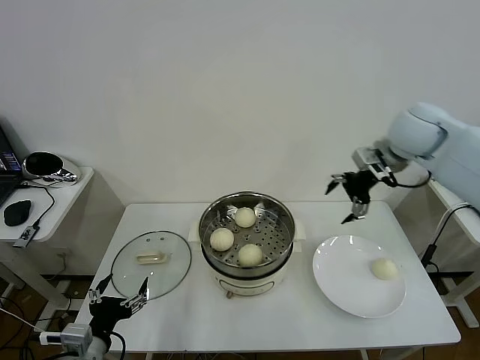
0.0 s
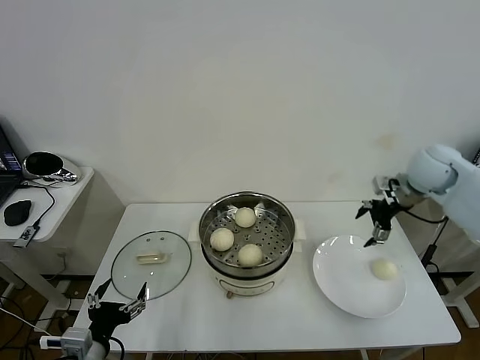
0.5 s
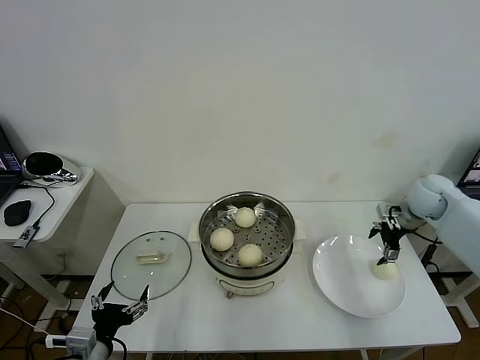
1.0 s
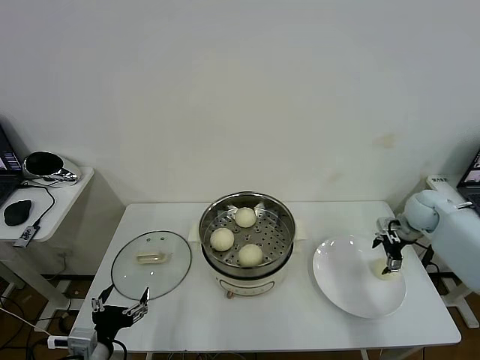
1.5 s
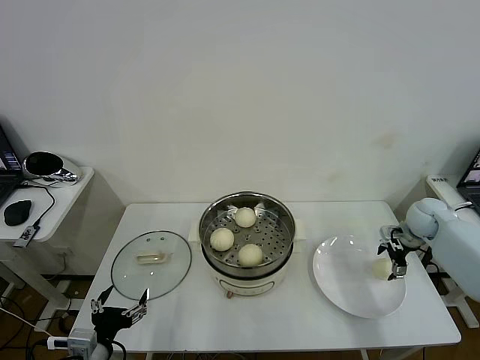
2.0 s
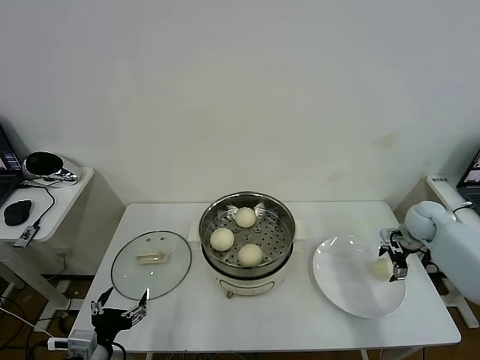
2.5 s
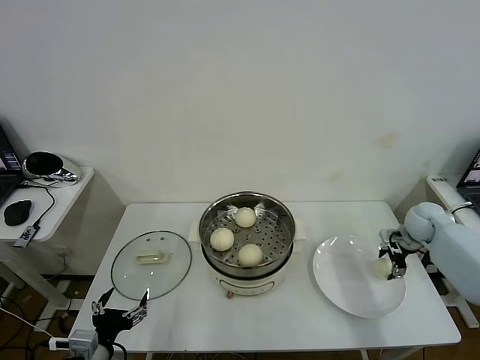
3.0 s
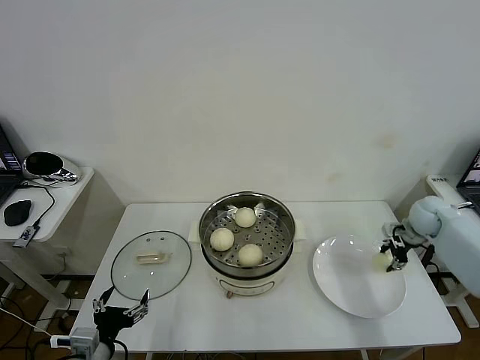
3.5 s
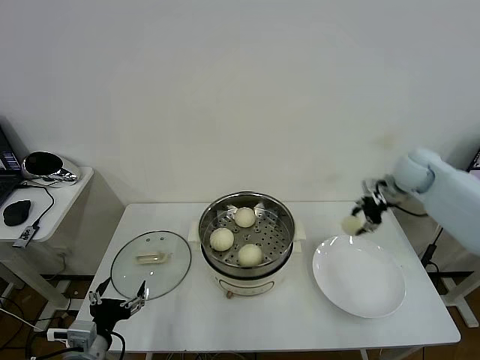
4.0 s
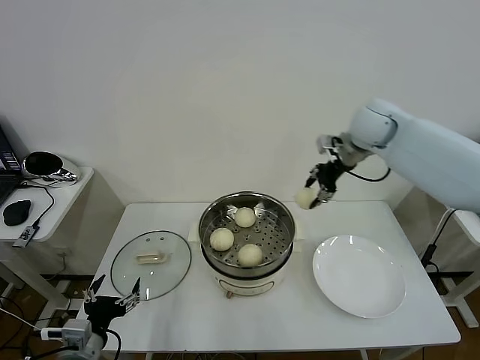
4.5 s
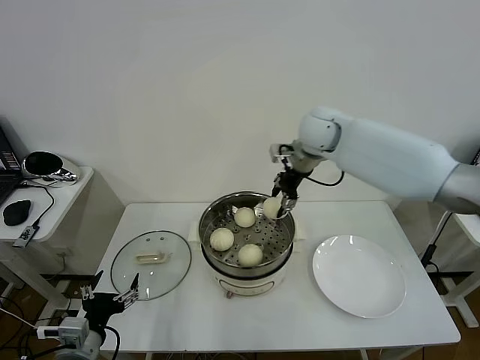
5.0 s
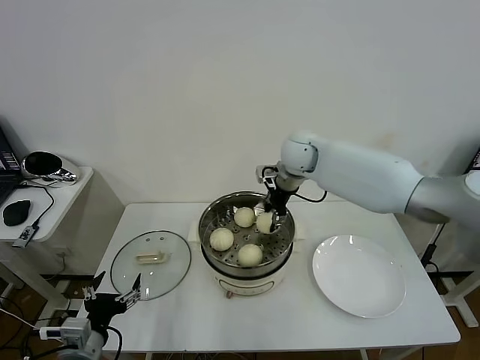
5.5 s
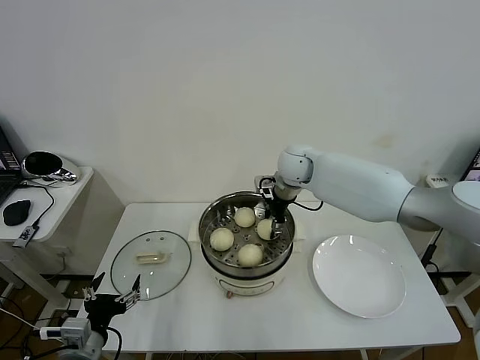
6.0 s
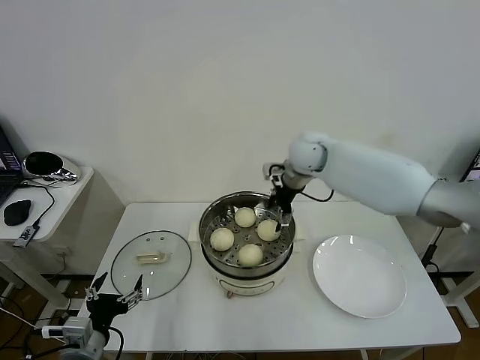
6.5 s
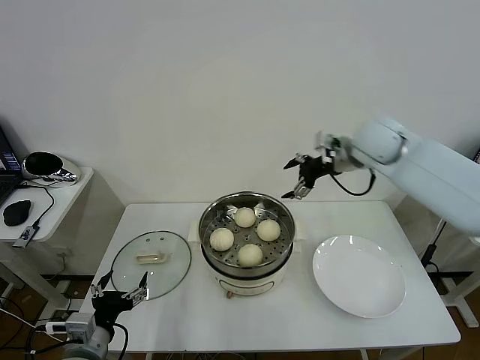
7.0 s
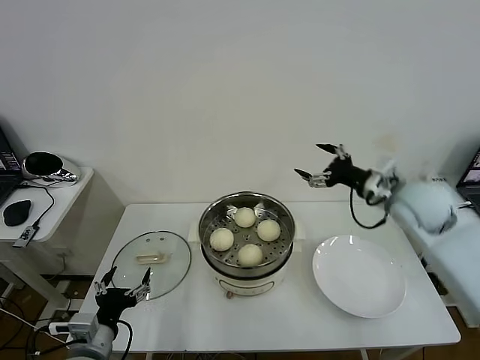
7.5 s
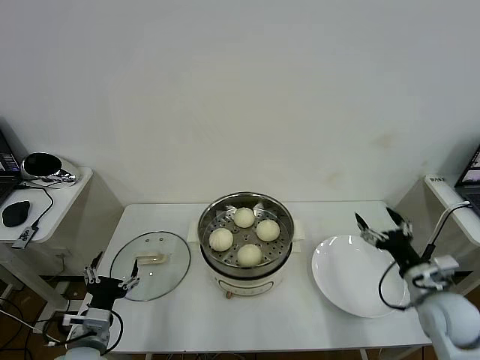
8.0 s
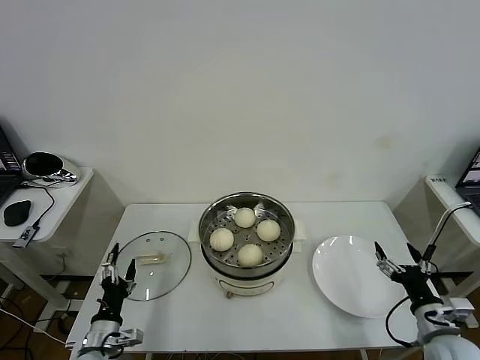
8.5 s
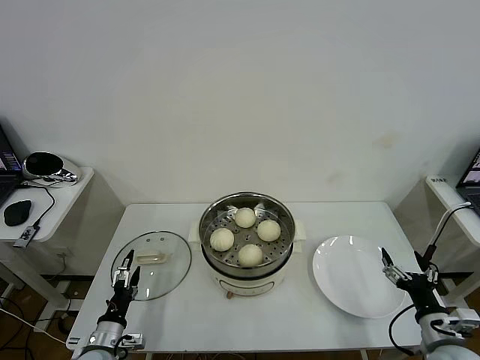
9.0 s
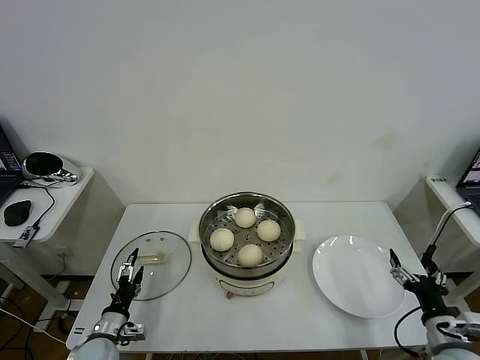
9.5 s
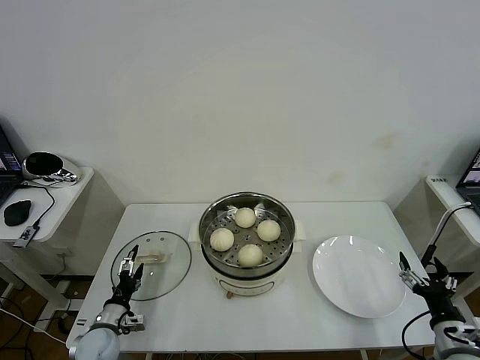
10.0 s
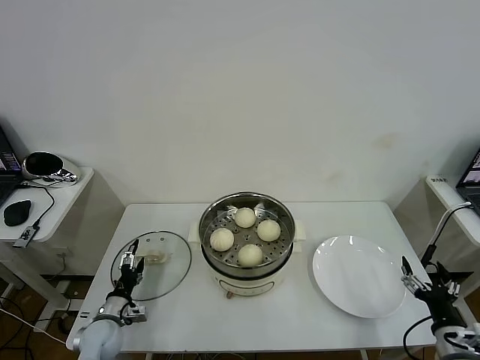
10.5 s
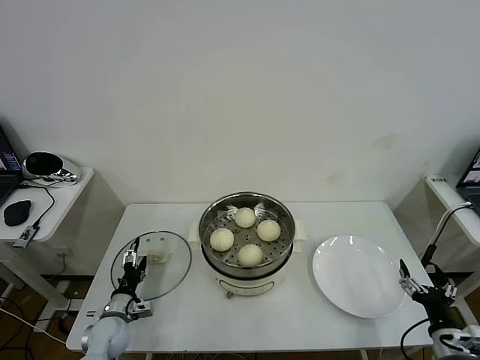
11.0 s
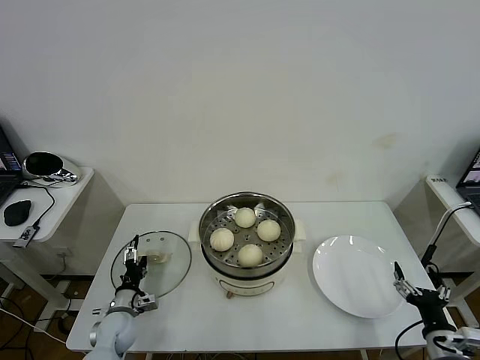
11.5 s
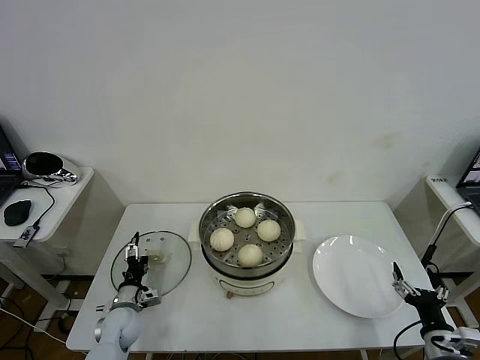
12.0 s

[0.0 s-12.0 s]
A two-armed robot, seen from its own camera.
Task of the whole recording: take steamed baozi put them in steamer then cover it.
Step, 0.0 to 3.0 s: Grasp the baozi in the plate with right gripper.
Step, 3.5 to 6.5 s: Place the baozi on the steamer with right gripper.
0.0 to 2.0 s: The right gripper goes some 25 cm downward and to the right.
2.0 to 4.0 s: The right gripper goes roughly 15 cm upward and to the left, and closes up.
4.0 to 6.0 s: The right gripper travels to the left by approximately 25 cm.
6.0 to 8.0 s: The right gripper moves backward, to the right and downward, about 40 cm, and opens.
8.0 to 10.0 s: The left gripper heads downward and forward, covering some 15 cm. The right gripper moves backward, roughly 10 cm.
10.0 to 12.0 s: The left gripper goes some 5 cm forward.

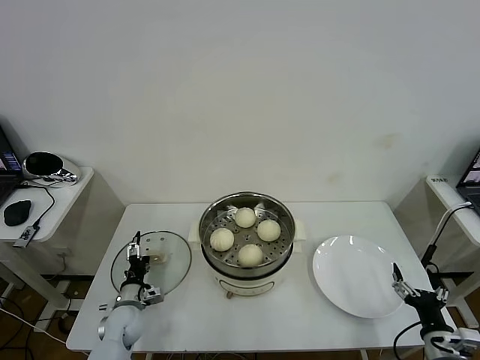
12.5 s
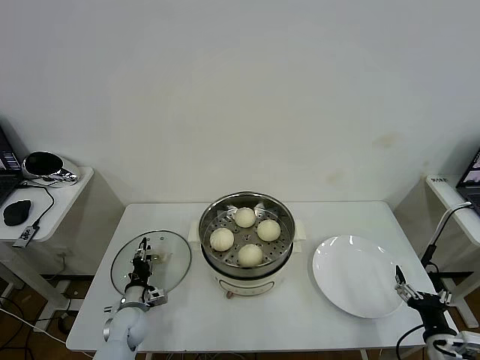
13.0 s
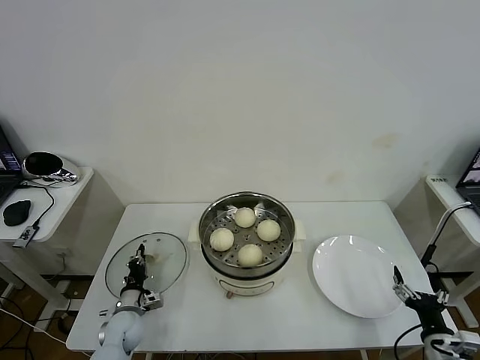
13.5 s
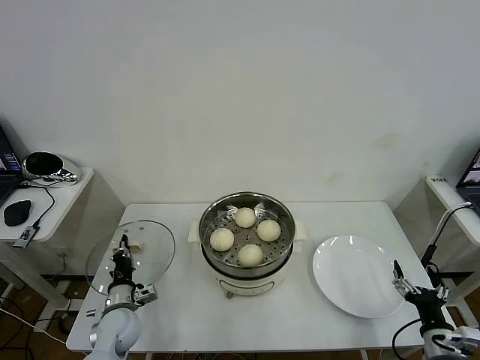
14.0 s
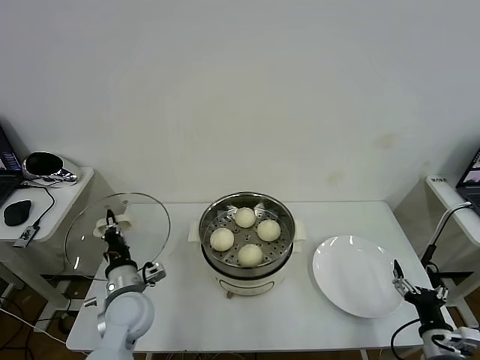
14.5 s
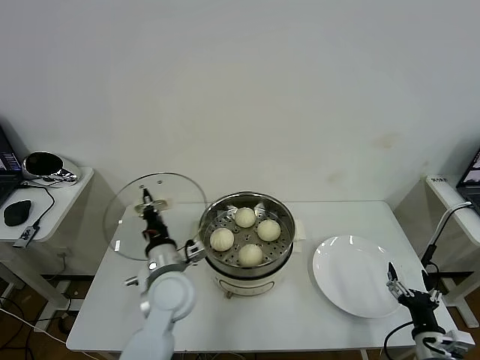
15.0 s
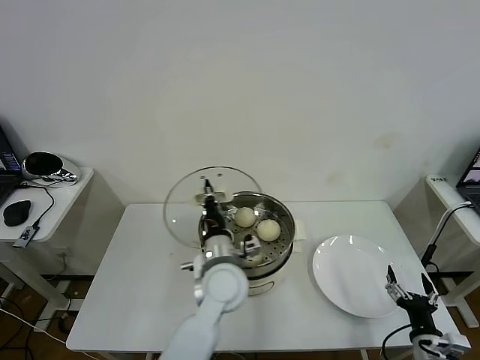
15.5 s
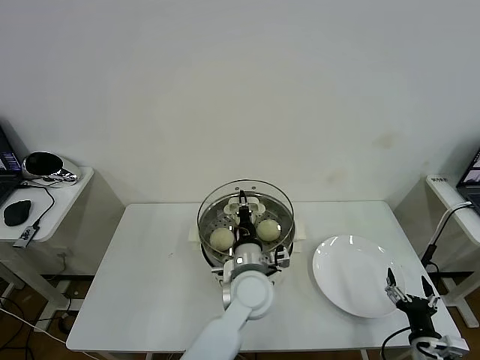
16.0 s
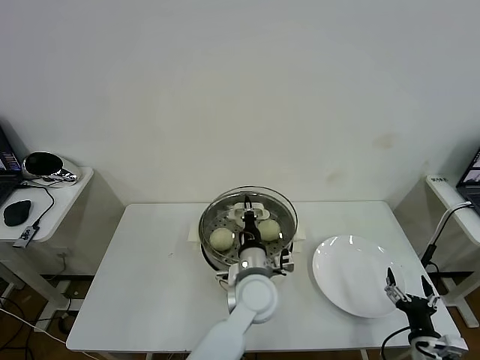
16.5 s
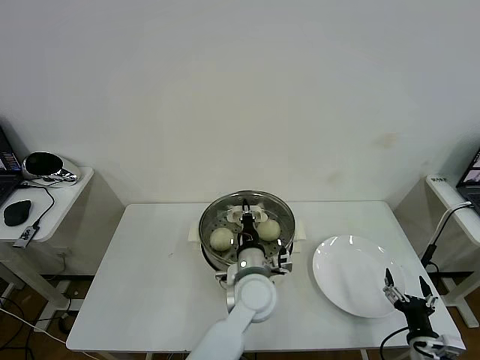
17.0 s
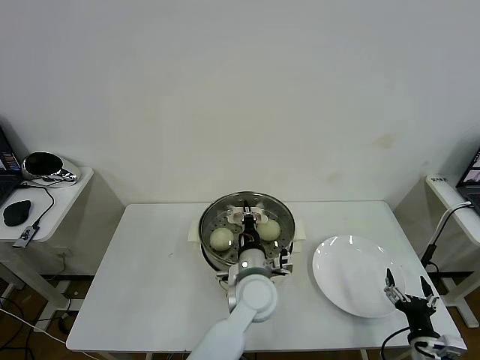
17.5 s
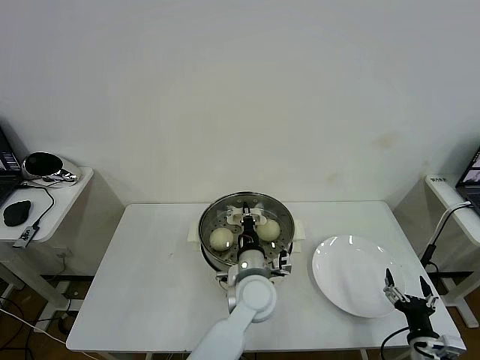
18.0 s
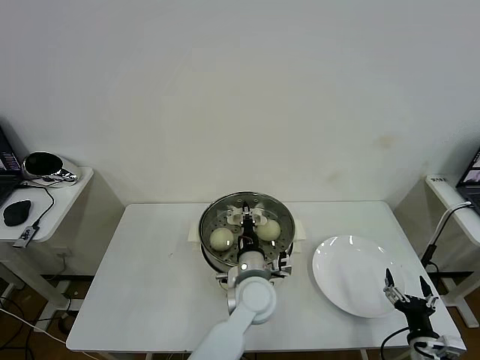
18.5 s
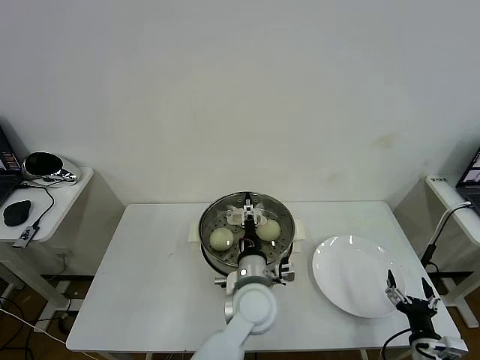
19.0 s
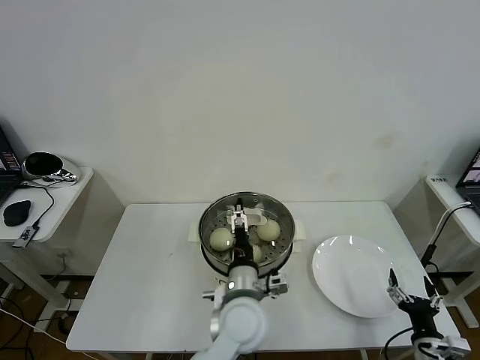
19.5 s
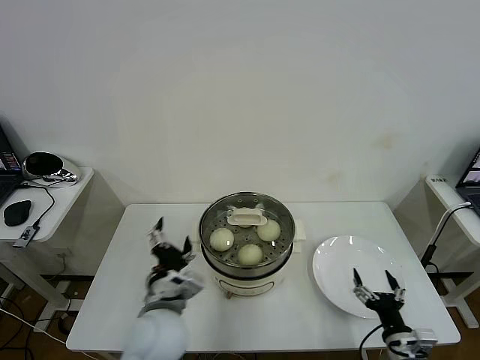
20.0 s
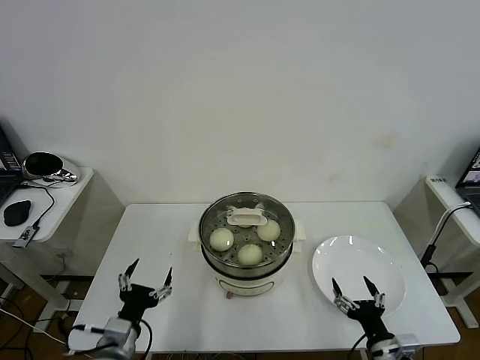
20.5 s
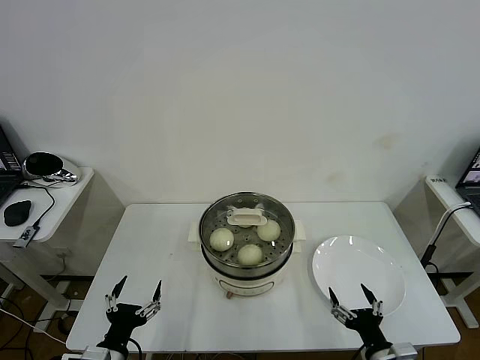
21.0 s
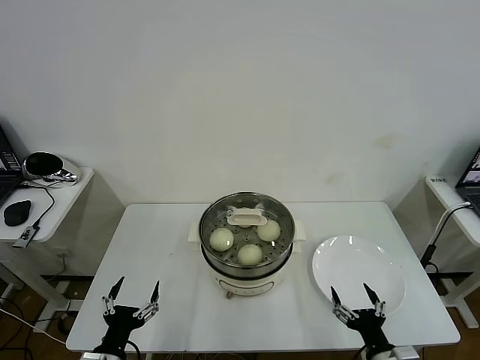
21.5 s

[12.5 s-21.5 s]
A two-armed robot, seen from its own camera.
Task of the whole recording: take steamed baozi put them in steamer then cover it.
Step, 14.0 to 18.5 s: Place the pot lid on the steamer with left gripper.
12.5 to 14.5 s: The left gripper moves upward and to the right, some 15 cm, and closes up.
14.5 to 17.0 s: The left gripper goes some 25 cm to the right.
17.0 to 19.5 s: The left gripper heads backward, covering some 5 cm, and opens.
19.5 to 21.5 s: The left gripper moves to the left and backward, roughly 30 cm. The right gripper moves to the left, roughly 10 cm.

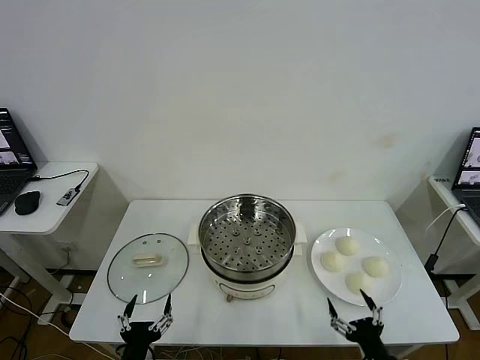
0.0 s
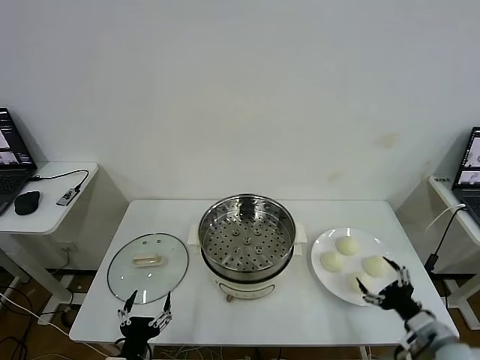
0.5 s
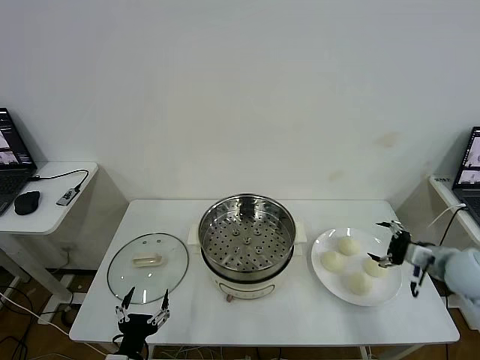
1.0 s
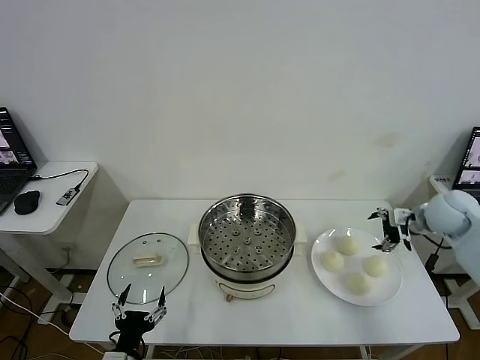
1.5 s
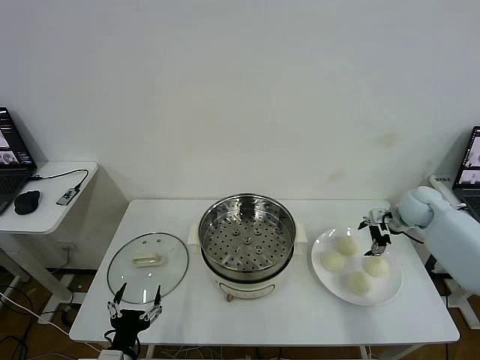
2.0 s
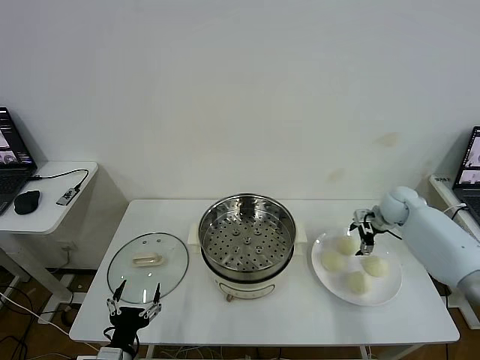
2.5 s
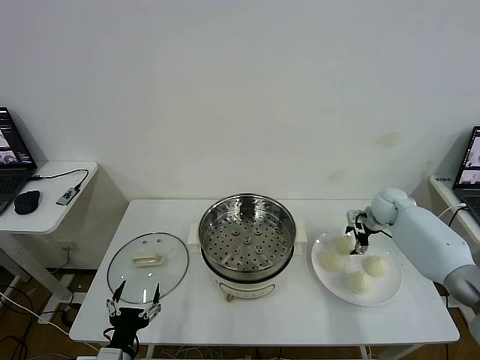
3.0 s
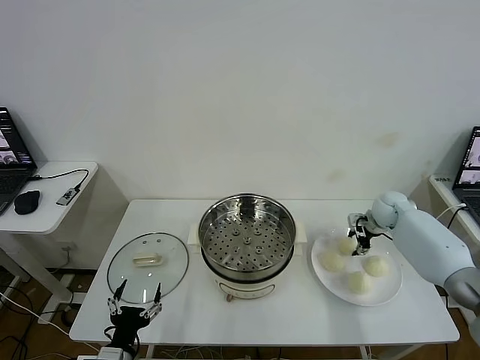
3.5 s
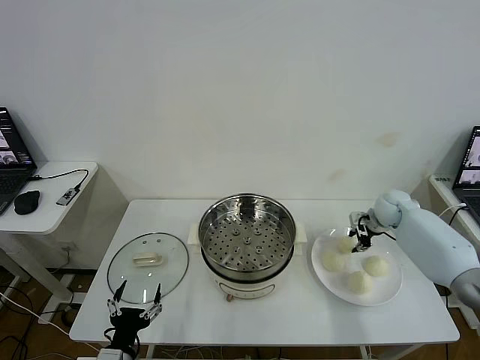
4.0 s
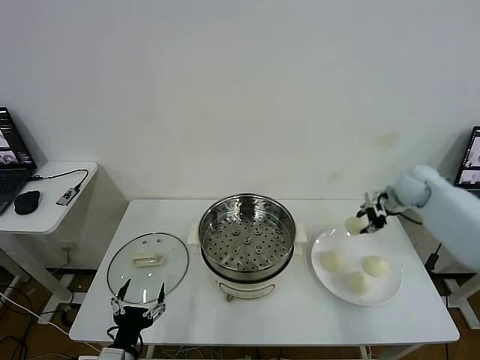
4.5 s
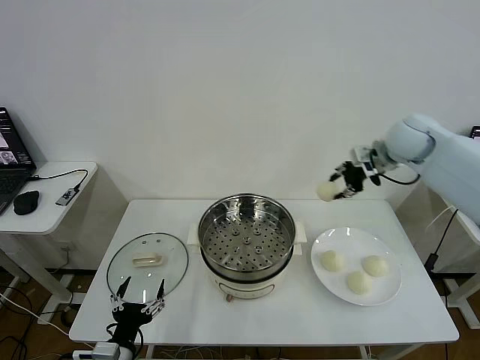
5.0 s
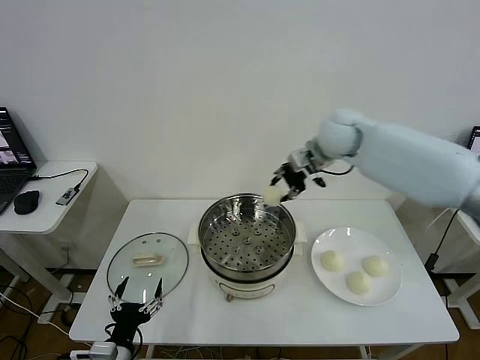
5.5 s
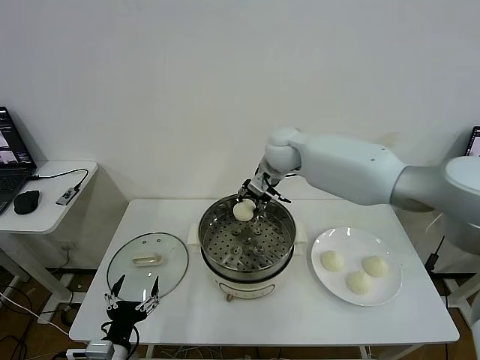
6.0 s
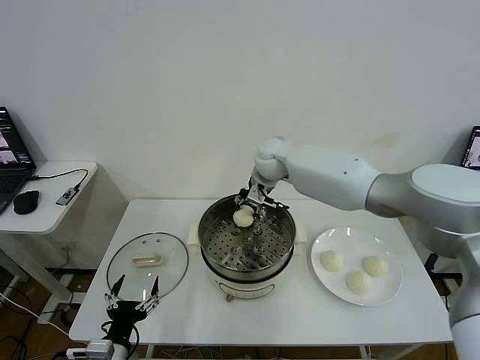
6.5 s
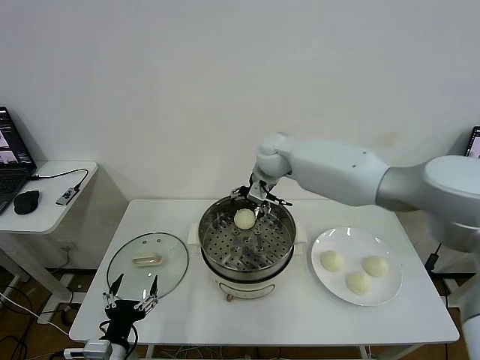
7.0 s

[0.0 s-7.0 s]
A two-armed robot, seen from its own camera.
Task of the whole recording: take steamed baozi put them in steamer then cover it.
Step, 0.0 to 3.0 s: Grasp the baozi in the plate with right gripper.
Step, 3.5 to 6.5 s: Place the baozi on the steamer with right gripper.
2.0 to 3.5 s: The right gripper changes place by approximately 5 cm, and closes.
3.5 to 5.0 s: The right gripper is displaced upward and to the left by roughly 25 cm.
5.0 to 7.0 s: The right gripper goes some 20 cm to the left, and opens up.
